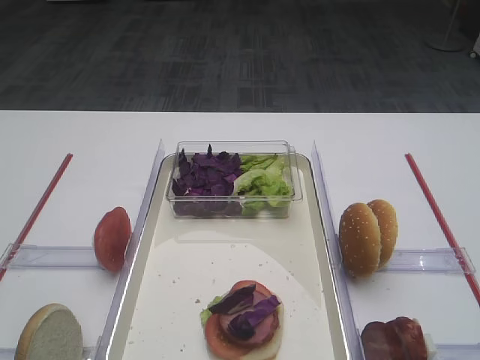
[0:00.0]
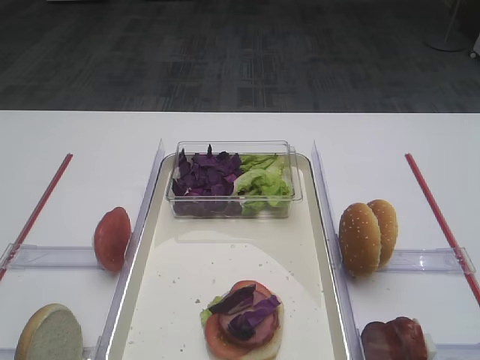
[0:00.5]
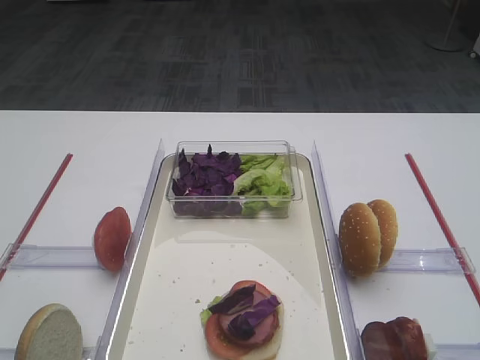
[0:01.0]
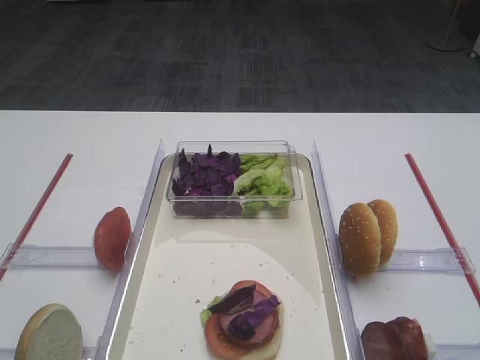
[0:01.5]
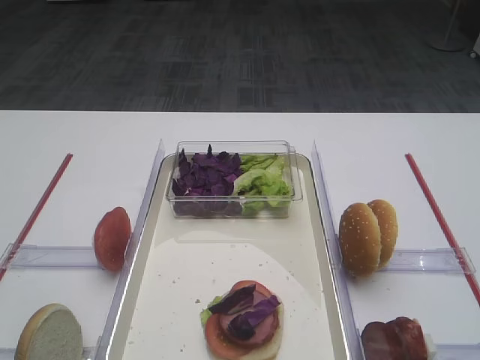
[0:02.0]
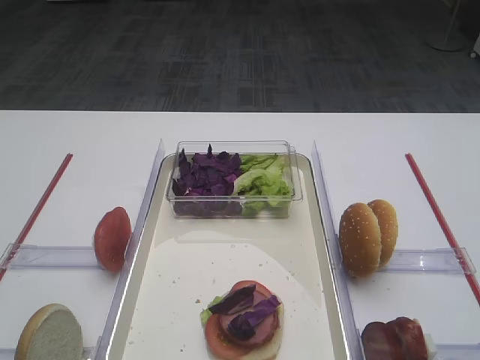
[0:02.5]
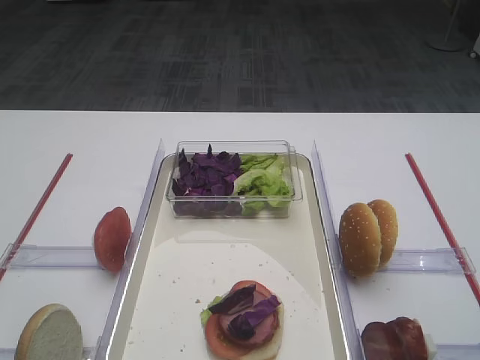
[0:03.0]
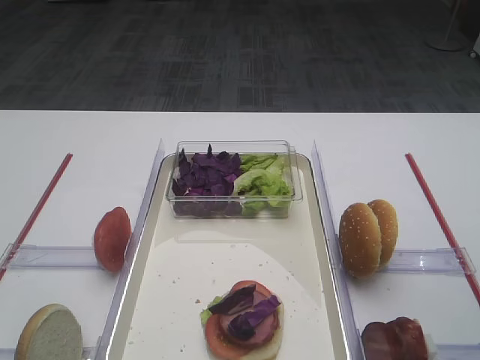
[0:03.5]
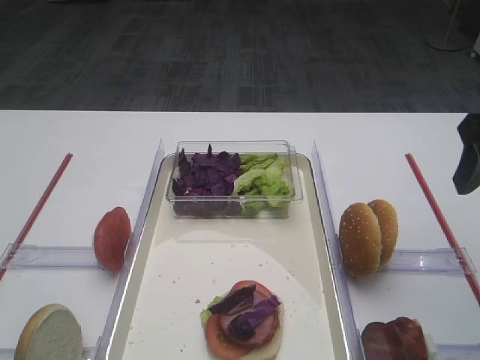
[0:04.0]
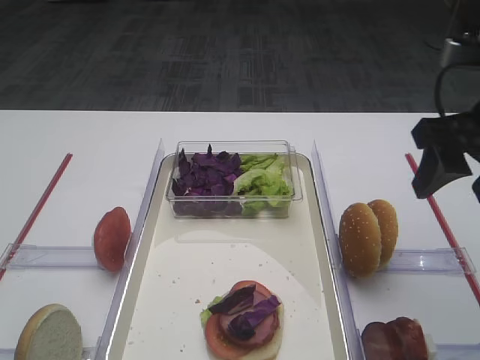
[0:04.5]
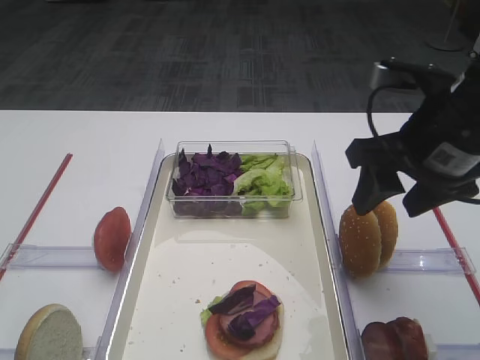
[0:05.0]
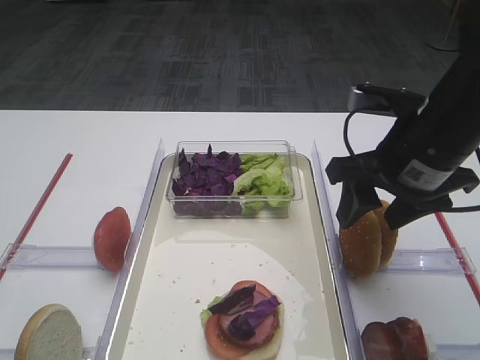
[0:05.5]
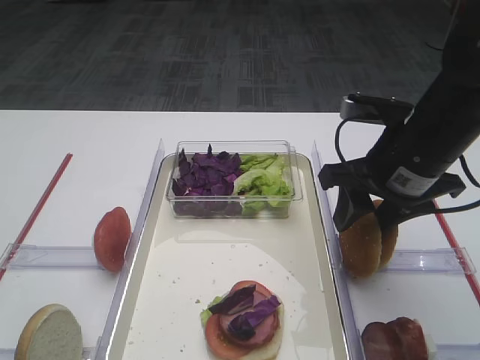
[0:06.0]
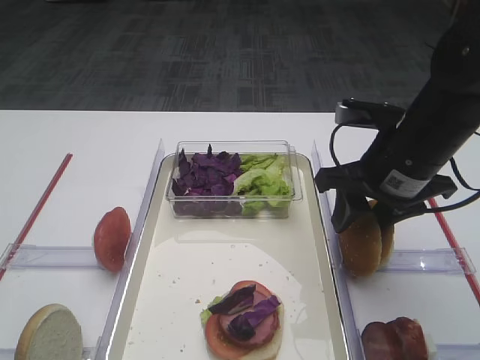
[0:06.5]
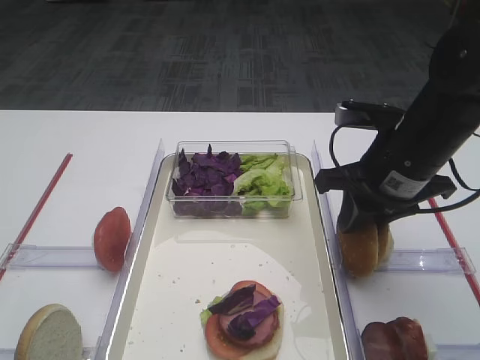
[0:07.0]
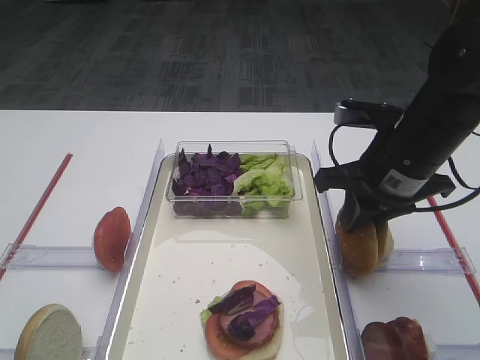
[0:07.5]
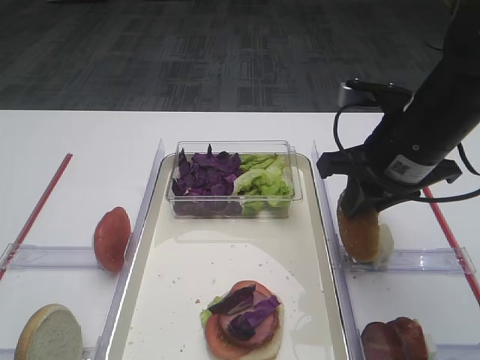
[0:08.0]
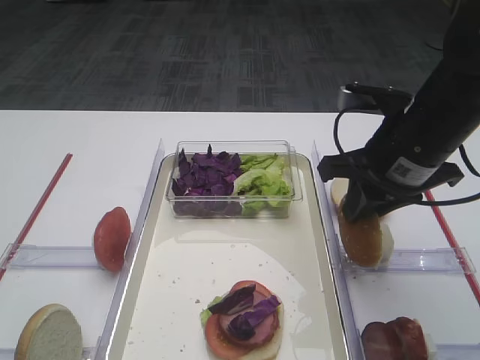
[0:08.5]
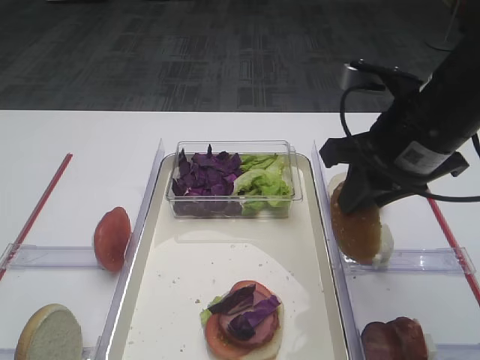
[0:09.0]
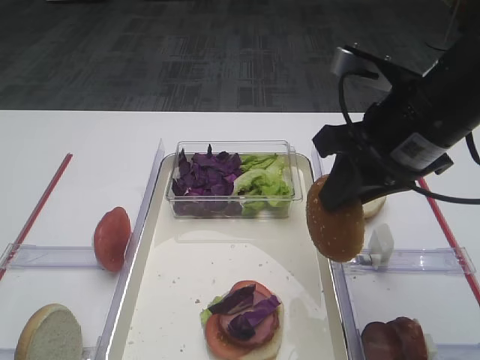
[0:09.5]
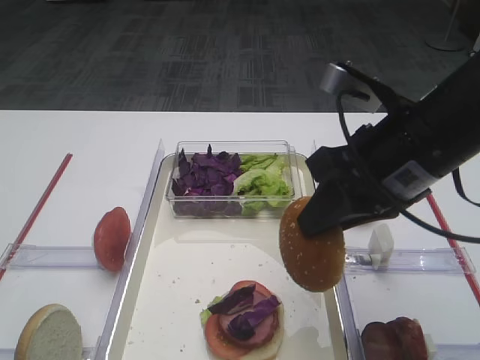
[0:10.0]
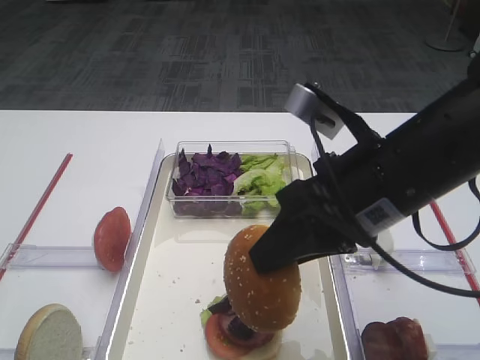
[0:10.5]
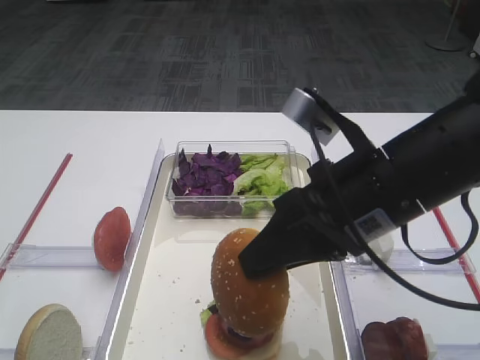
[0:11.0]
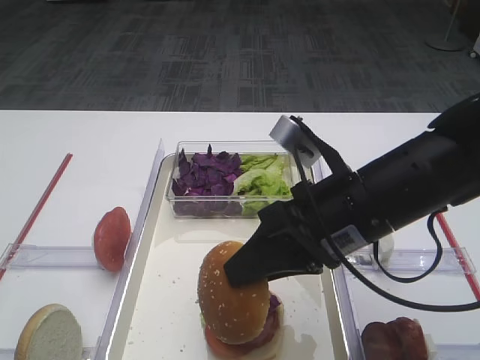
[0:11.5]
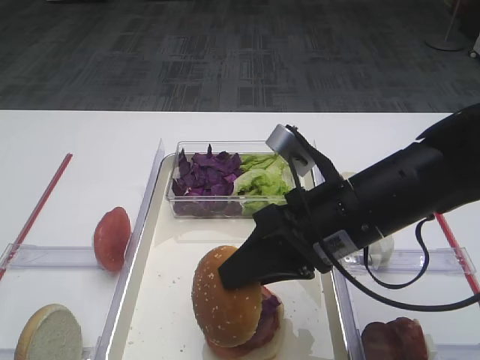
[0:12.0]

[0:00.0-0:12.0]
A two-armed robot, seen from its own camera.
Step, 0:00.0 to 0:09.0: Pick up the hamburger lid with the right gripper.
0:02.0 to 0:04.0: The right gripper heads forward, covering roughly 25 cm.
0:04.0 to 0:06.0: The right gripper moves to the left and downward, roughly 10 cm, and closes.
0:06.0 to 0:08.0: The right gripper closes its fingers.
0:08.0 to 0:10.0: The right gripper travels backward by about 5 cm.
0:10.0 to 0:12.0: The right gripper heads downward, covering some 5 cm.

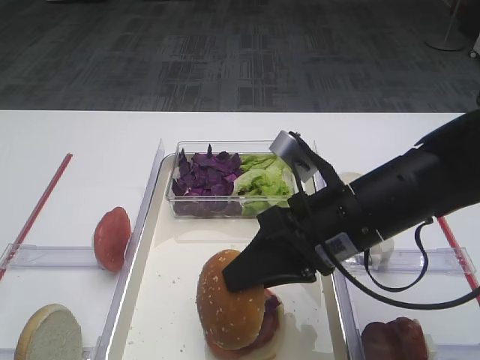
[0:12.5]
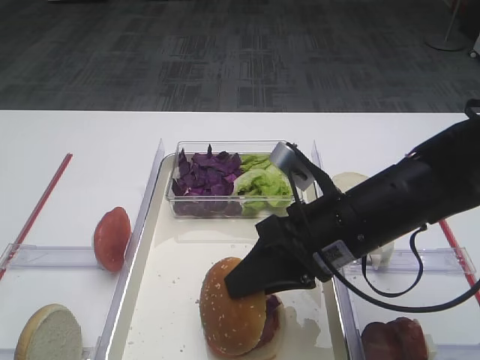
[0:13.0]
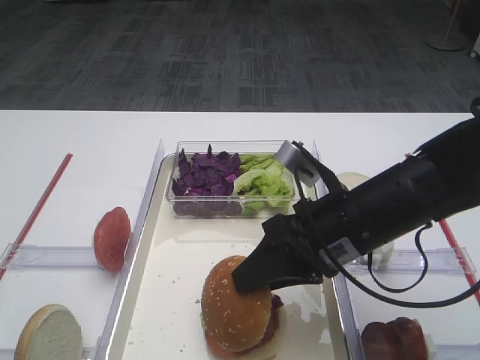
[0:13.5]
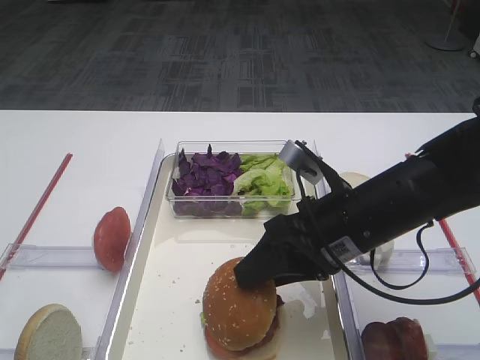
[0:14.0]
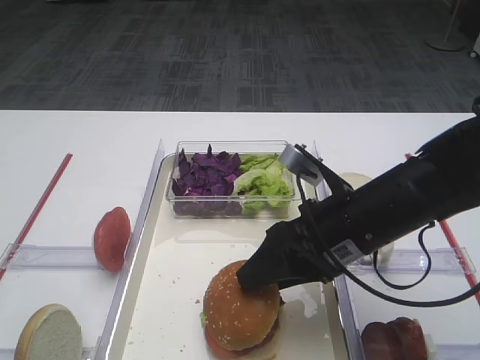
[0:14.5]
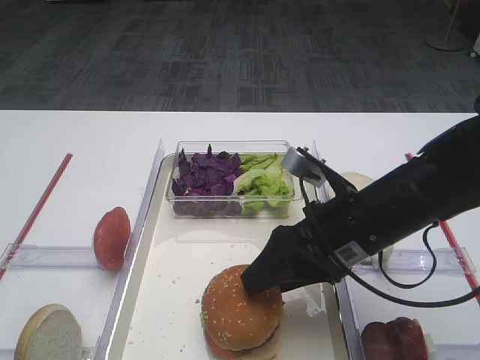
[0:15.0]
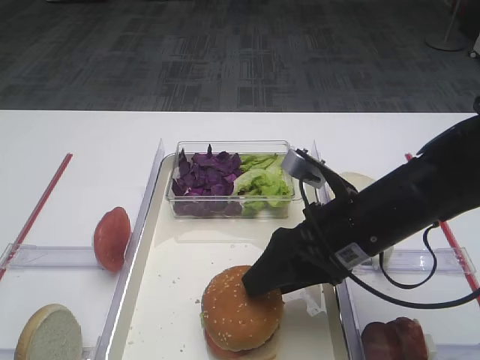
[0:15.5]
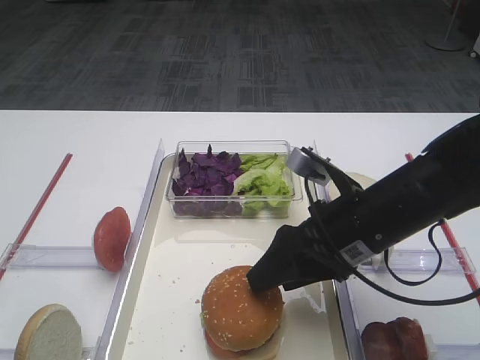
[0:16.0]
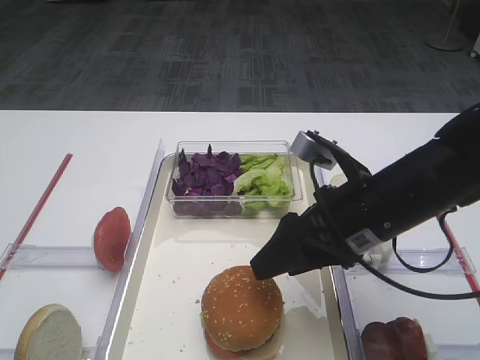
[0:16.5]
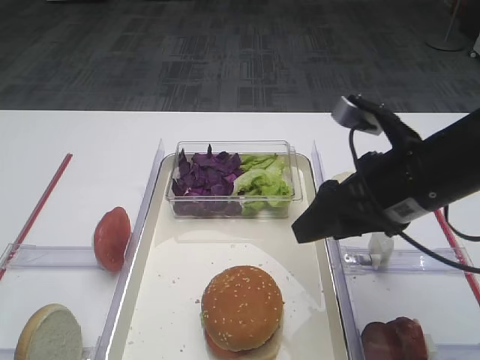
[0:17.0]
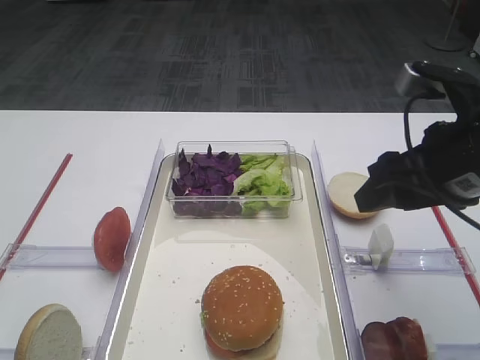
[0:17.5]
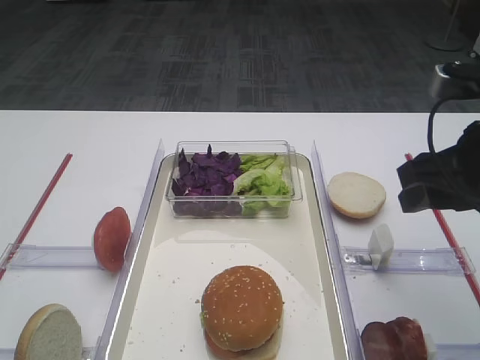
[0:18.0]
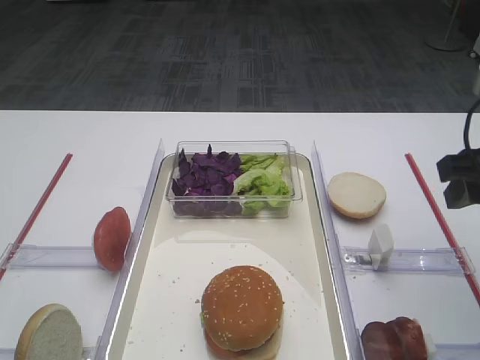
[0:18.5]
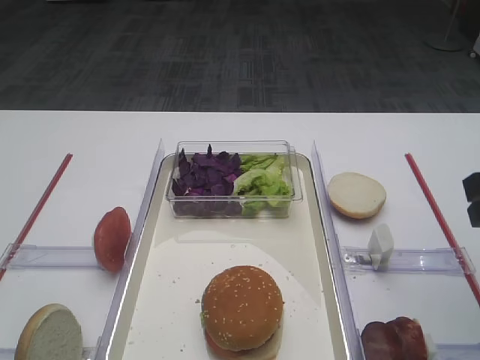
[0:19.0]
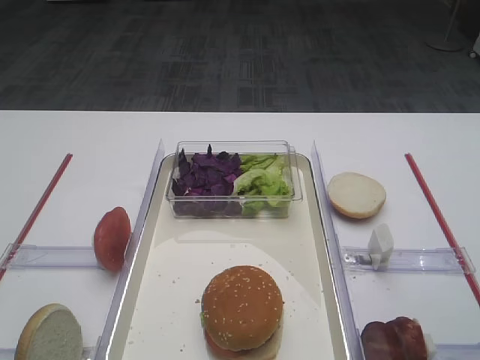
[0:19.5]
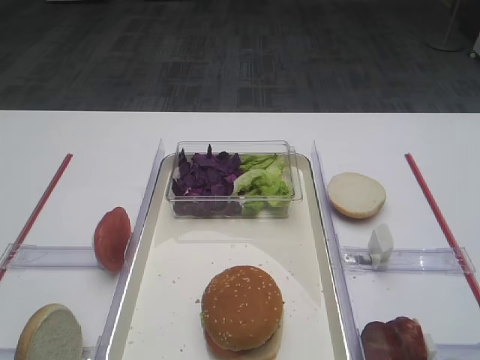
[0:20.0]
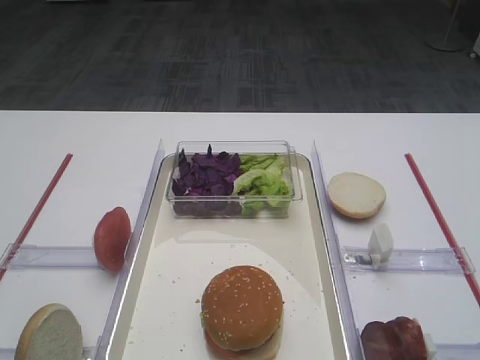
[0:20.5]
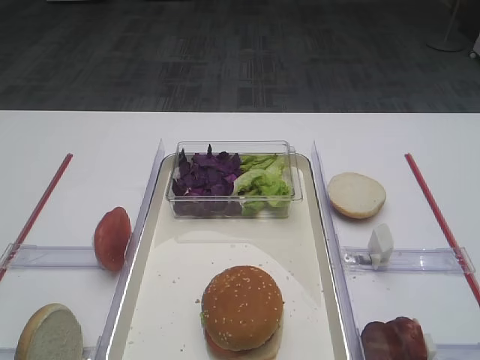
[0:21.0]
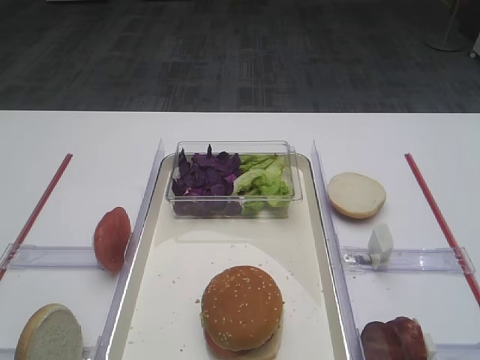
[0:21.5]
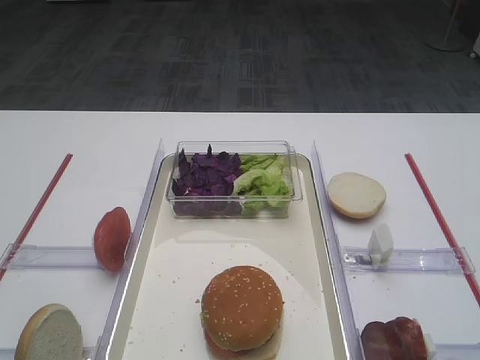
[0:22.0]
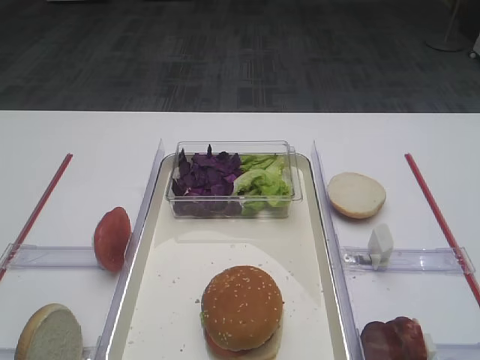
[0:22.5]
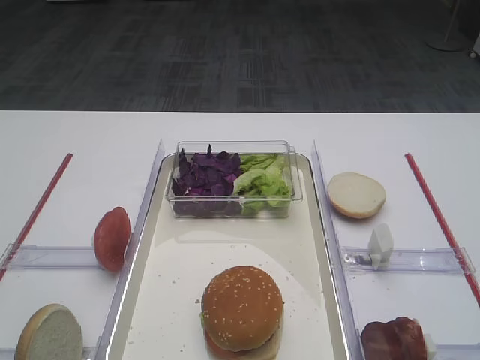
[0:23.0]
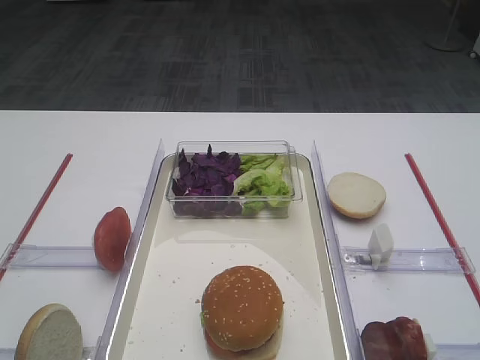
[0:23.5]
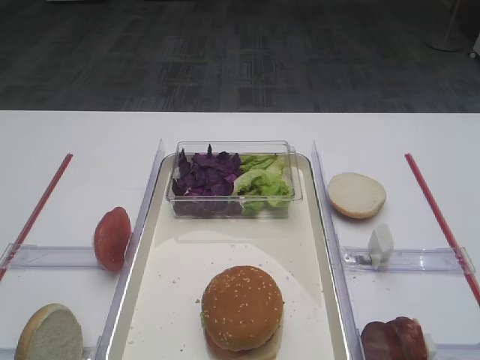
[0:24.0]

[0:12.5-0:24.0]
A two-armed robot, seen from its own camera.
Step, 0:12.5 to 0:16.5: Place the hamburger lid on the purple cabbage with the right gripper.
0:12.5 to 0:14.5: The right gripper opens its fingers.
0:14.5 to 0:16.5: There are only small adjustments of the grippers.
0:16.5 to 0:18.5: The right gripper is displaced to the right and upward by about 15 cm.
0:18.5 to 0:20.0: The right gripper shifts roughly 20 cm backward.
0:22.0 to 0:24.0: Both grippers stay put.

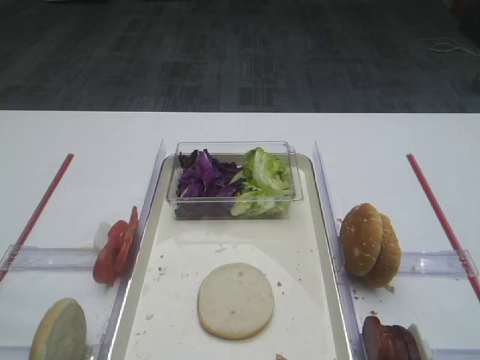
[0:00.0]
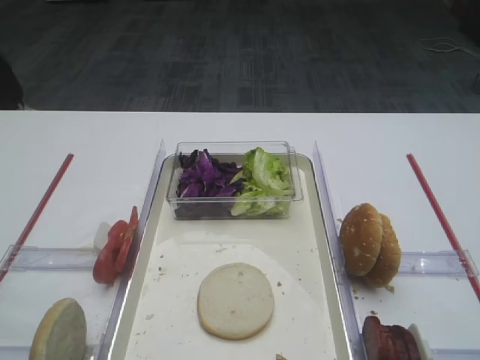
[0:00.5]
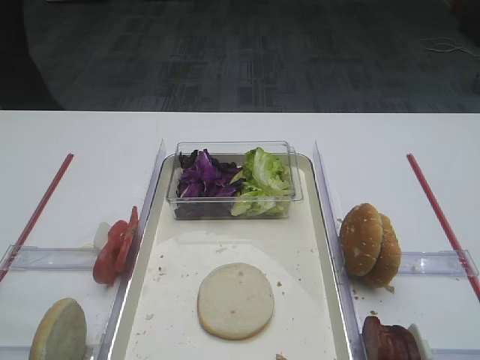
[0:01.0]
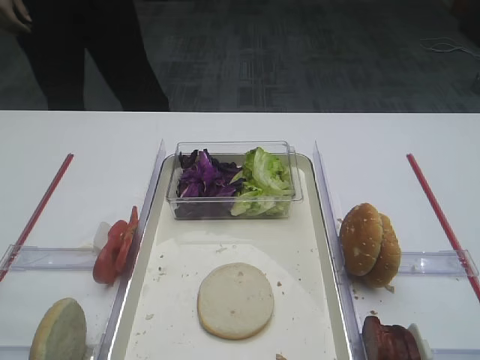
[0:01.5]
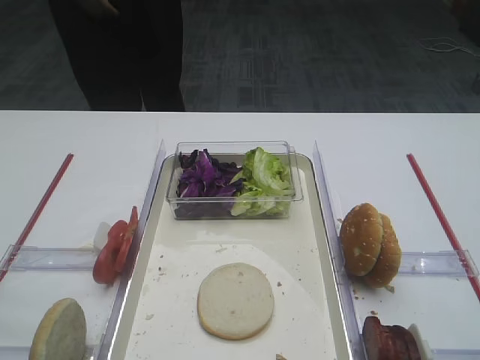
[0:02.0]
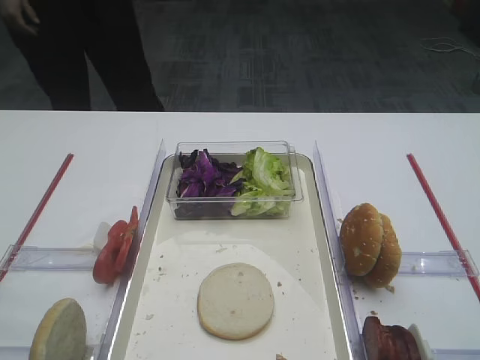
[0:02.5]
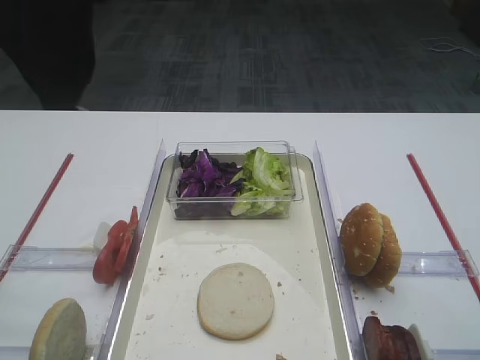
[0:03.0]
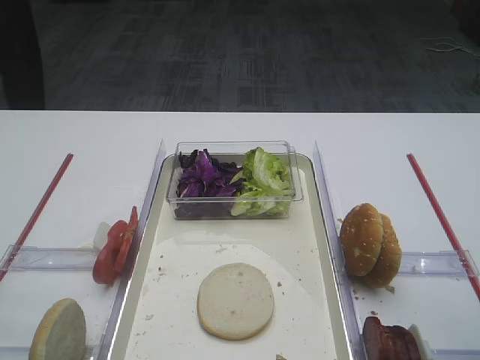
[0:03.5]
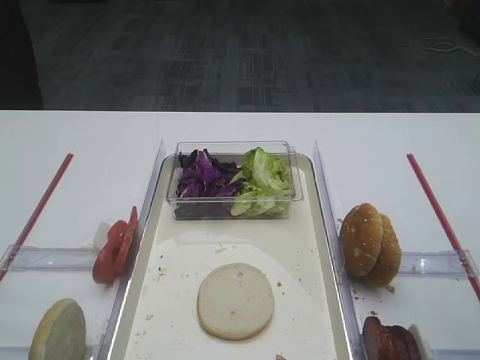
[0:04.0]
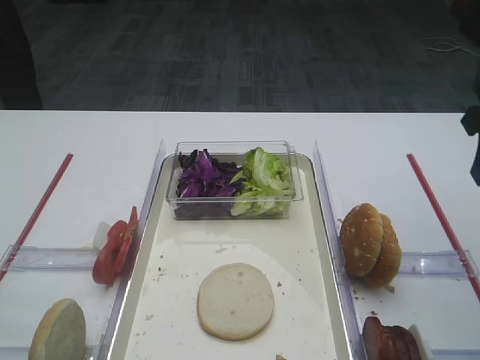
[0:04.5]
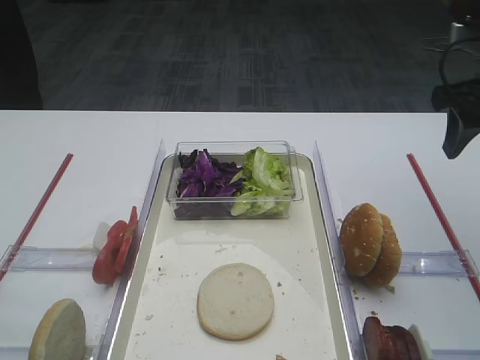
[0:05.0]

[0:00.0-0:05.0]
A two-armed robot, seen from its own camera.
0:02.5 to 0:05.0: The right gripper goes about 30 cm forward.
